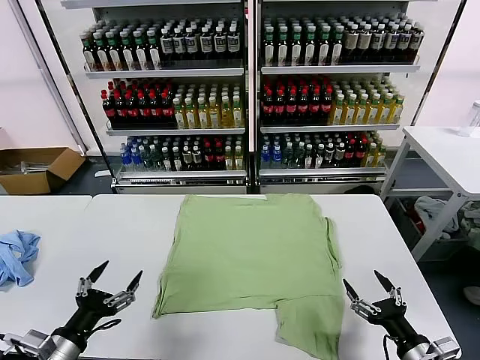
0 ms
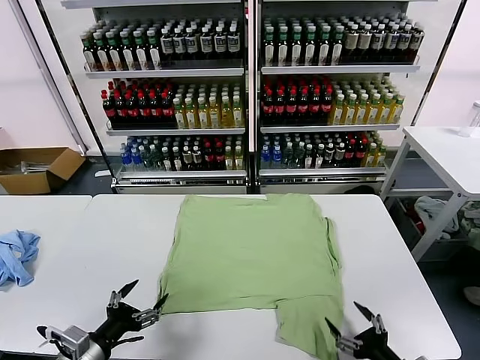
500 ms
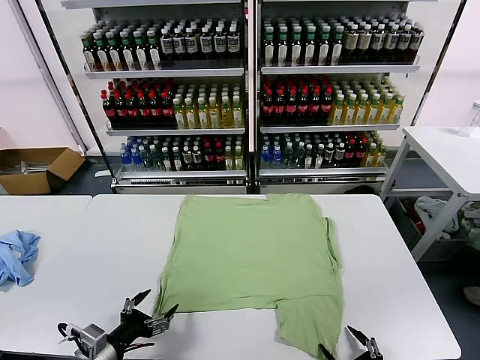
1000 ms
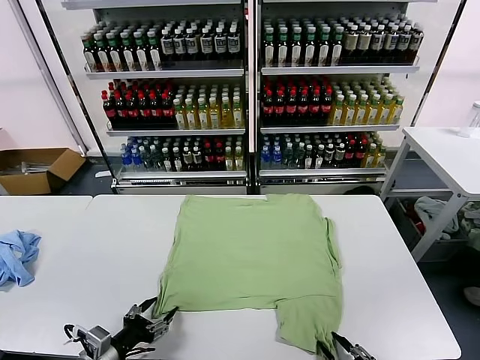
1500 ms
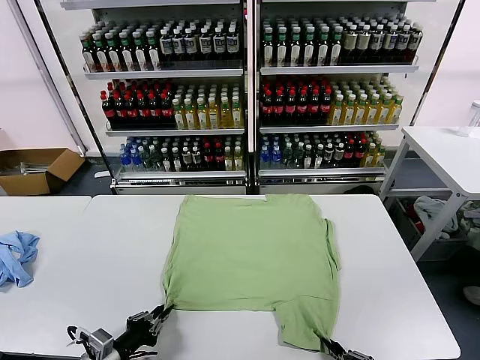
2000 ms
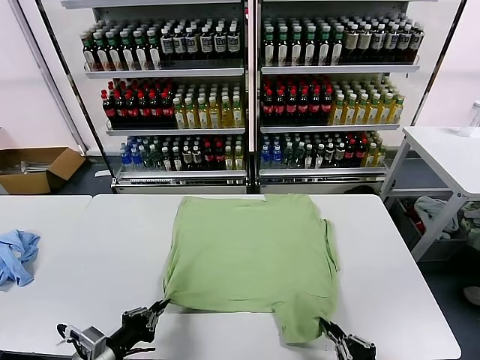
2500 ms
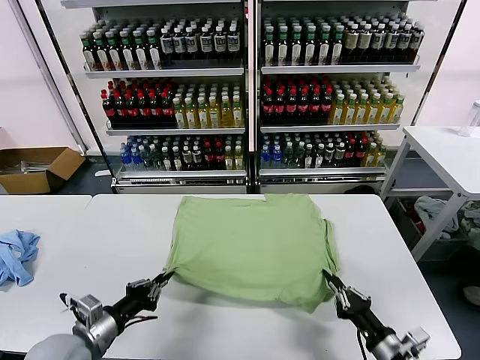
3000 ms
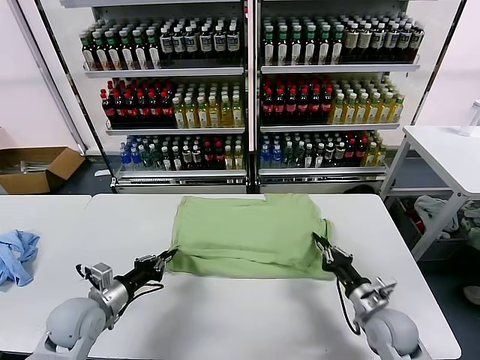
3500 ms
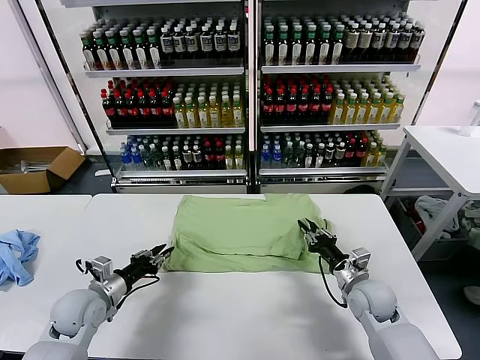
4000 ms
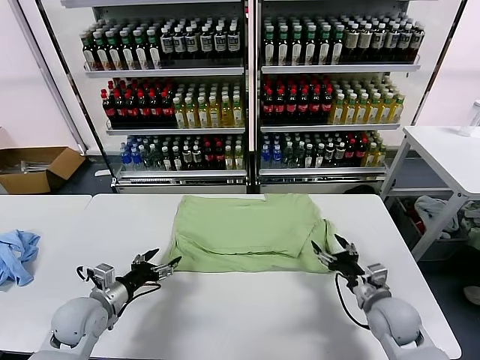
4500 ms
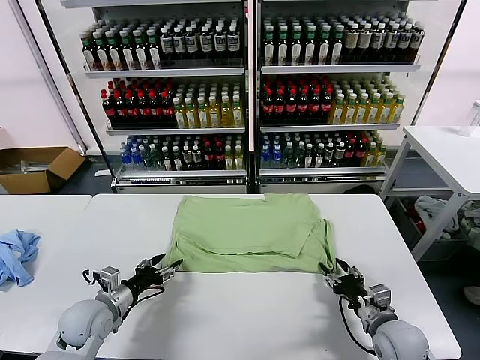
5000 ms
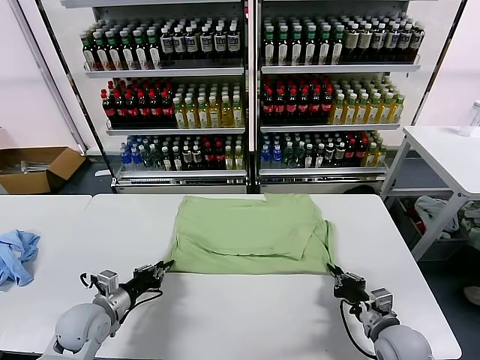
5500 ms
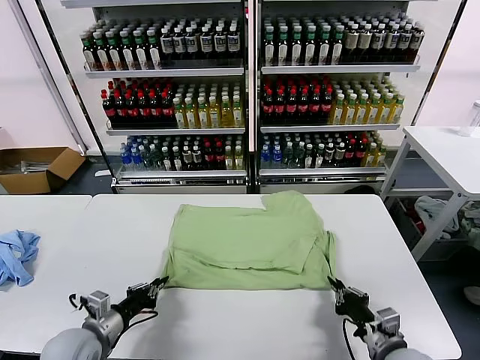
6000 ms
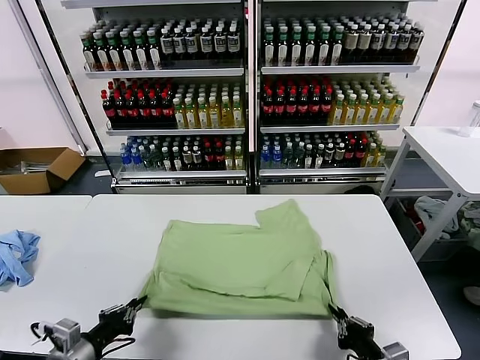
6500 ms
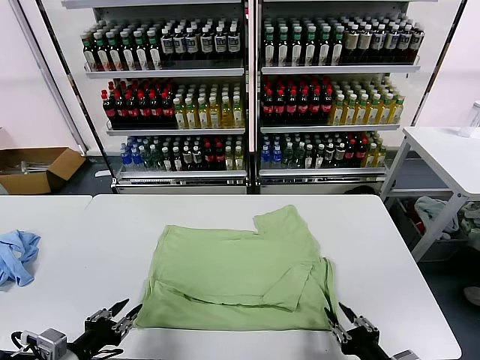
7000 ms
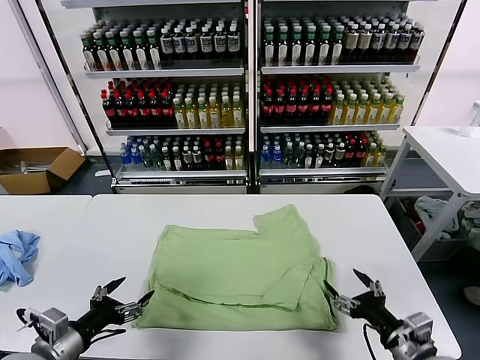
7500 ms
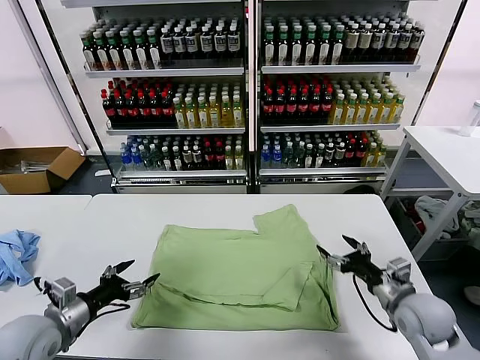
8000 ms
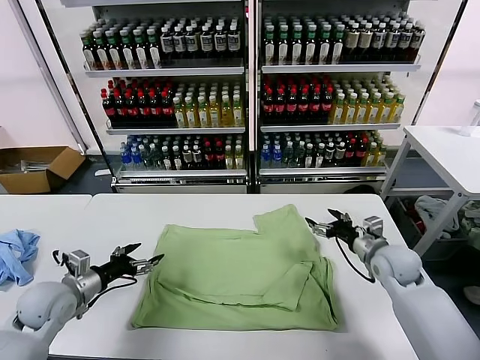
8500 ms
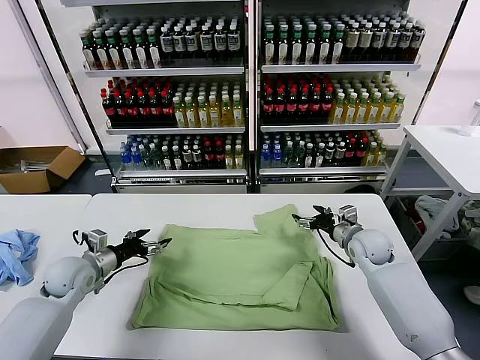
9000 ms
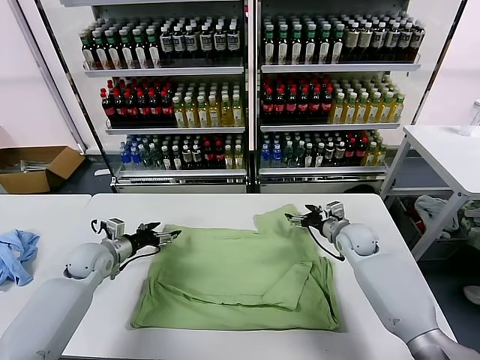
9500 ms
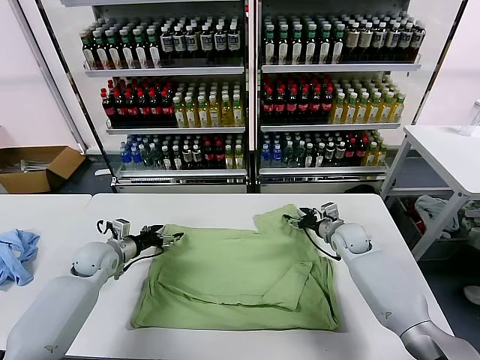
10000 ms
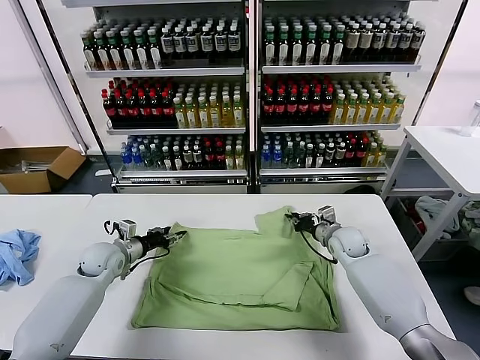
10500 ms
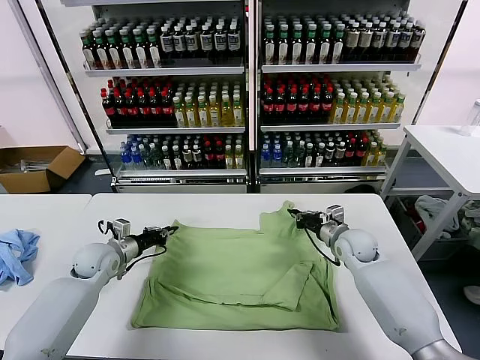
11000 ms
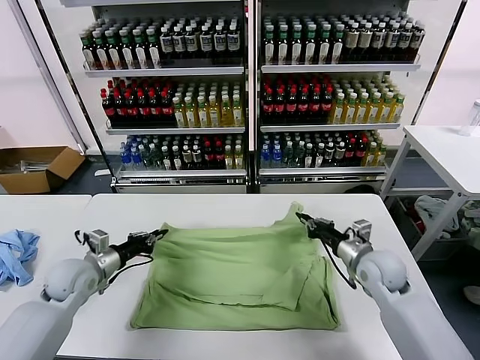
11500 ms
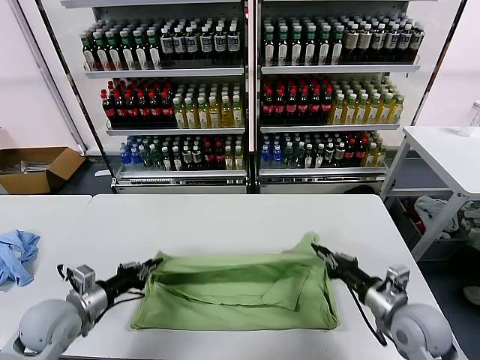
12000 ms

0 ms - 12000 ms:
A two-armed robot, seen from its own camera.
Task of the whole recording: fold and organize the clothes.
Step, 0 ms - 2000 ms: use both grippers simultaneously to clamp the lower edge of the clothing fabric.
Step, 2500 ms - 4000 ms: use both grippers to drag the lower edge of the fabric forward and fold it over the upper edge.
Step, 4500 ms - 6500 ms: Drag the clothes downward with both gripper.
Step, 7000 ms - 10500 ms: use both grippers simultaneously to clamp the upper edge of the clothing fabric.
2000 ms - 4000 ms: The left gripper goes about 15 cm forward. The right gripper moves forward, approximately 25 cm, and opens.
4000 ms - 6000 ms: The right gripper heads backward, covering some 15 cm, and closes up. The left gripper goes some 10 cm backward, and closes up.
6000 ms - 8000 ms: The left gripper goes roughly 10 cm upward and to the left, travels backward and back again, roughly 10 cm each way, and opens up; the right gripper shifts about 15 cm forward and upward, and opens.
8000 ms - 10000 ms: Both grippers travel together forward, about 20 cm.
10000 ms - 12000 ms: The right gripper heads backward, covering roughly 25 cm, and closes its fingers. Meanwhile the left gripper heads backward, covering some 15 cm, and closes up.

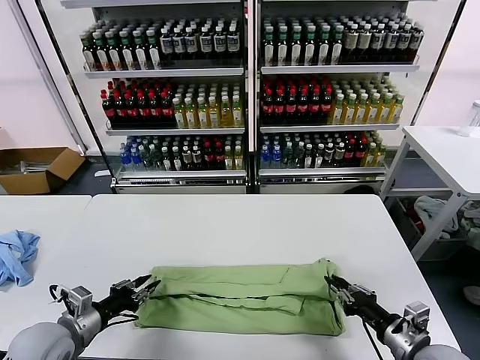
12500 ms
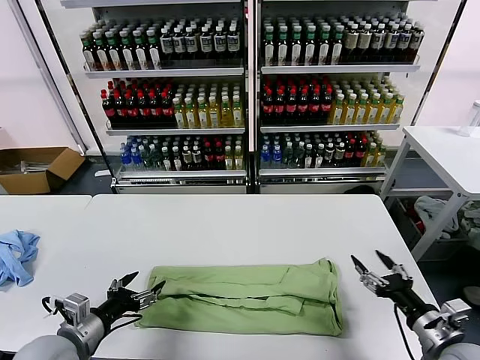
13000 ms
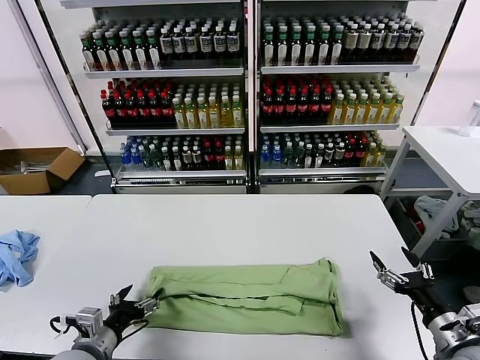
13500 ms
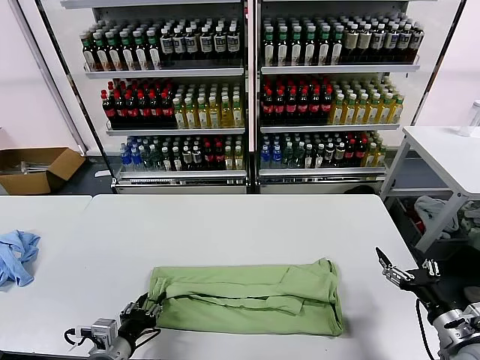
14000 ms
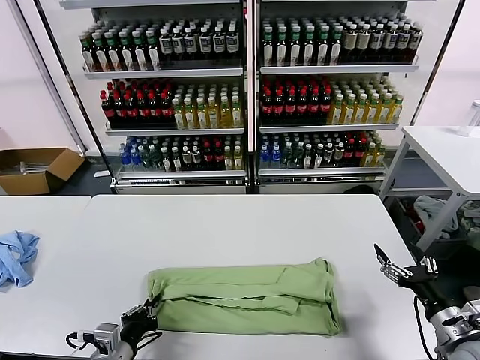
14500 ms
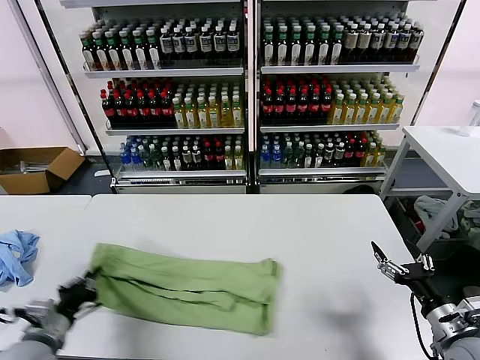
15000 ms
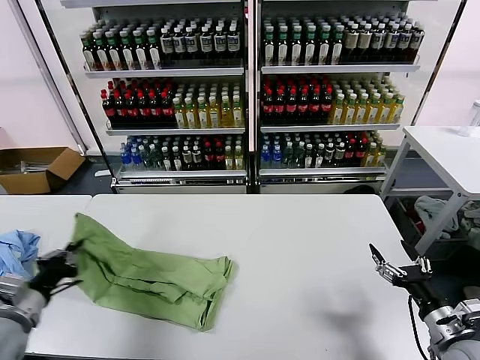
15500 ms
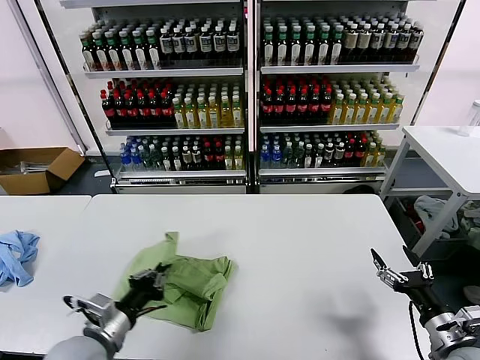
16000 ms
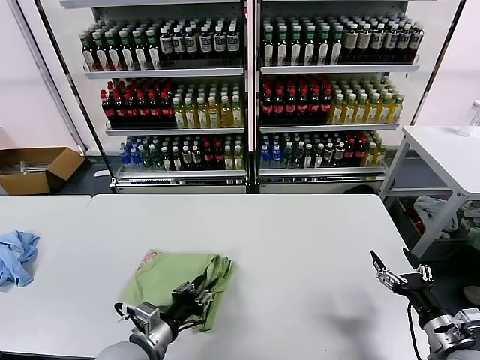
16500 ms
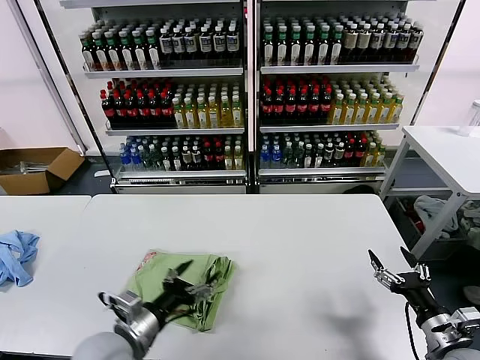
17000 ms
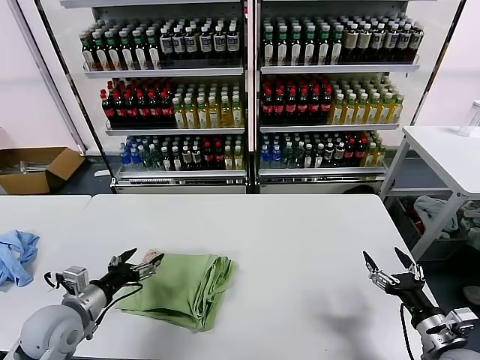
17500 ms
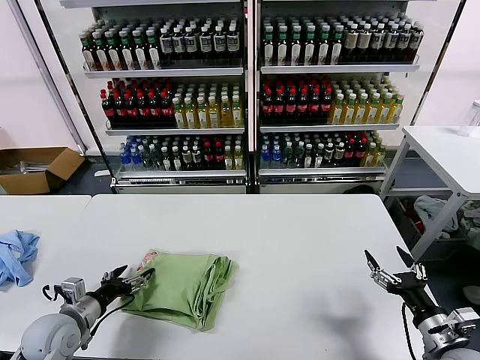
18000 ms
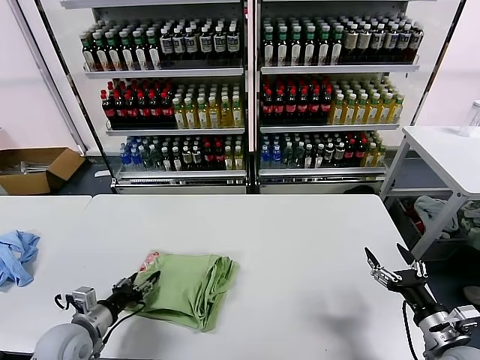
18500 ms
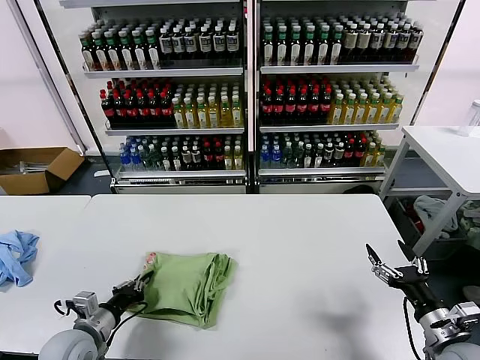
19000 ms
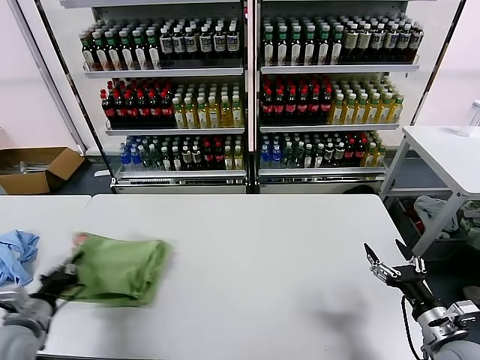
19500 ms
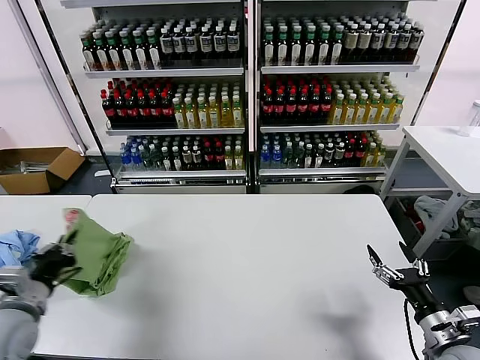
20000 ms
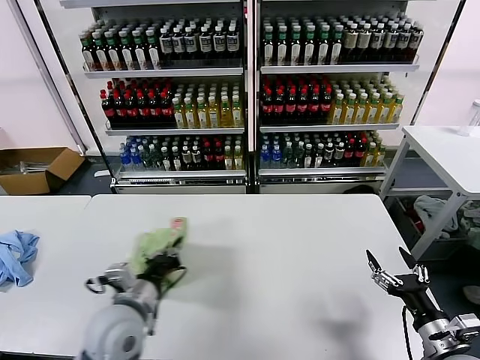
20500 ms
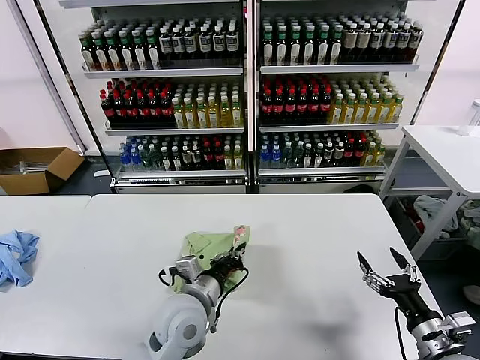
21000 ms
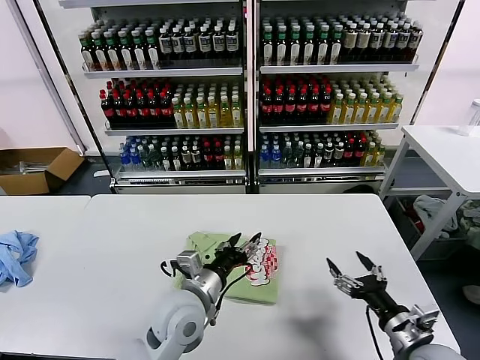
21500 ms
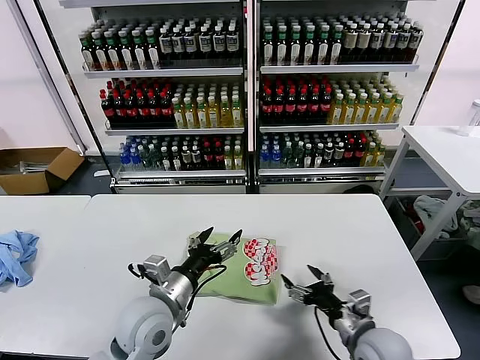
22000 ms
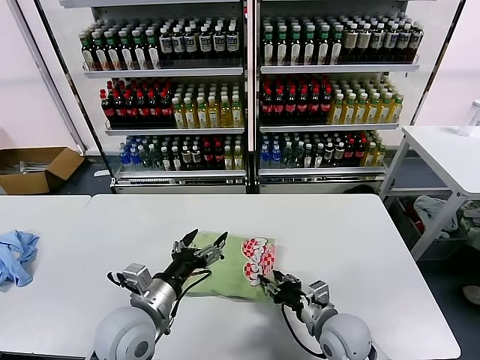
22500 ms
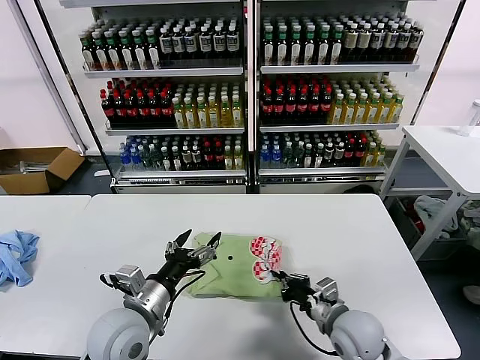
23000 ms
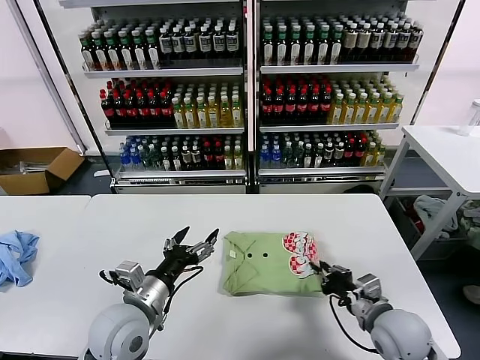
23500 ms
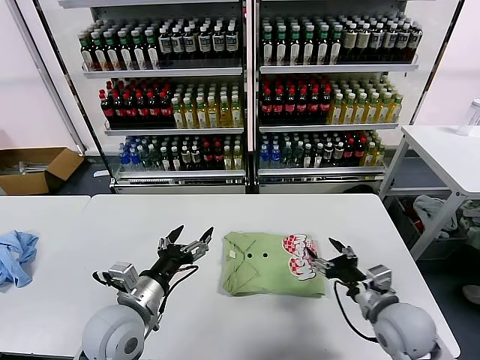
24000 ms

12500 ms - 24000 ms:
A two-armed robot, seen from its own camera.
Task of the whole recording: fold and organize the clothes.
Step, 13000 ms - 14000 ms: use the left gripper to clamp the left edge of the fabric.
Step, 14500 ms - 16500 ms: use the left gripper to drag the left edge of the fabric to the left and folds it over the right edge.
Step, 17000 ms - 21000 ms: Flip the folded clothes over with left gripper.
12500 ms - 14500 ms: The left gripper shifts some 10 cm to the right and backward, and opens, then closes once more, while the right gripper goes roughly 5 cm to the right, and opens its fingers.
14500 ms - 16500 ms: The left gripper reaches approximately 15 cm to the left, then returns.
16500 ms - 18500 ms: The left gripper moves to the left, approximately 15 cm.
18500 ms - 20000 ms: The left gripper heads upward and to the left, covering roughly 10 cm, and closes.
20000 ms - 22000 ms: The left gripper shifts approximately 25 cm to the right, and opens up. Meanwhile the right gripper moves to the left, about 15 cm.
22000 ms - 24000 ms: The left gripper shifts by roughly 5 cm, while the right gripper ends up roughly 5 cm from where it was, and closes, then reopens.

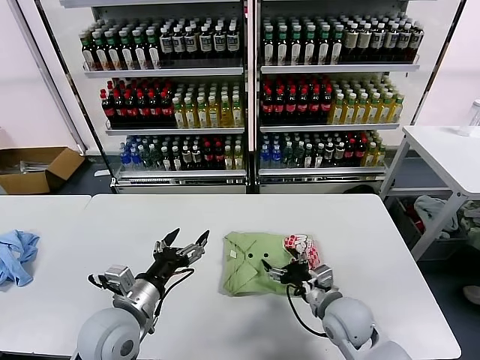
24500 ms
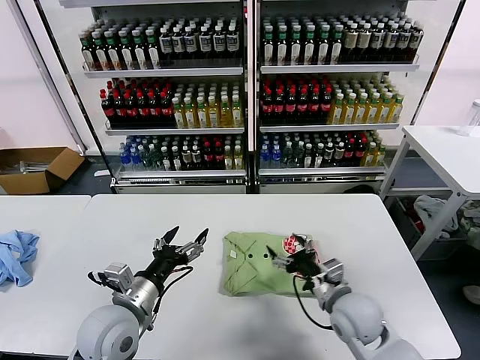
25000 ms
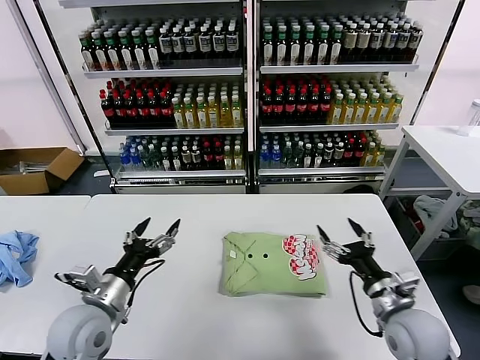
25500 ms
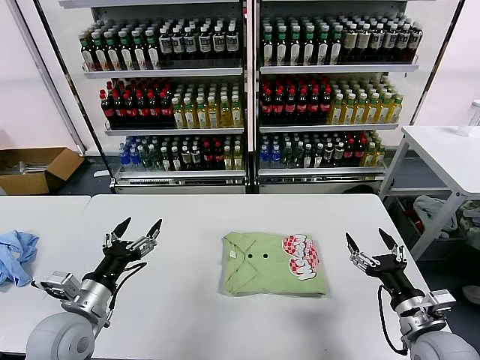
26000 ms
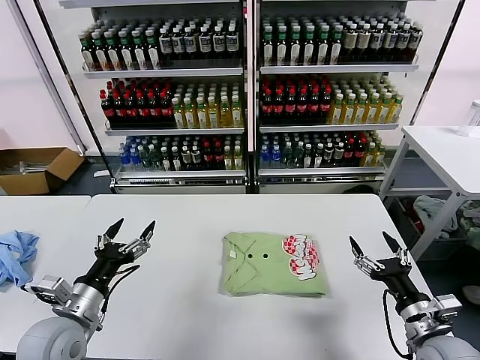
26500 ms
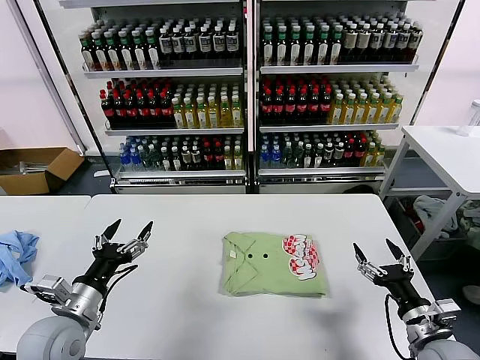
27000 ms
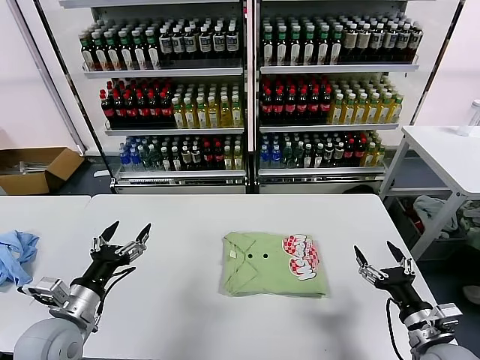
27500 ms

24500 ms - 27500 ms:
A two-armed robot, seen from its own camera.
Task of the whole recording: fold and organize the clothes.
24500 ms - 26000 ms: The right gripper is displaced to the right, backward and upward by some 15 cm. The left gripper goes some 10 cm to the left.
26000 ms - 27500 ms: There are only small adjustments of the grippers.
